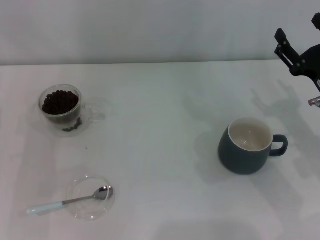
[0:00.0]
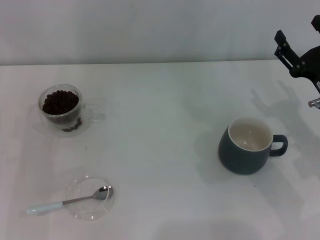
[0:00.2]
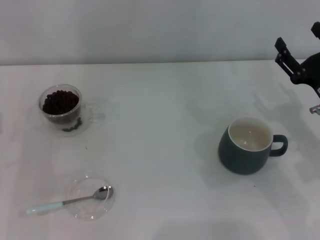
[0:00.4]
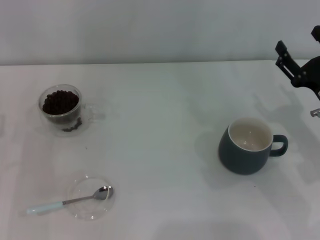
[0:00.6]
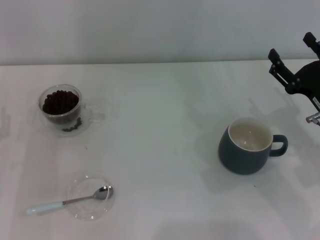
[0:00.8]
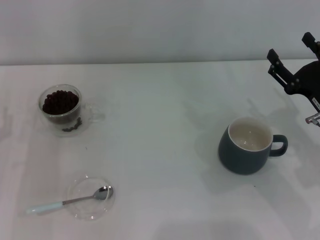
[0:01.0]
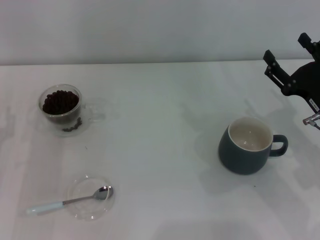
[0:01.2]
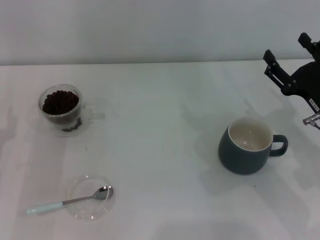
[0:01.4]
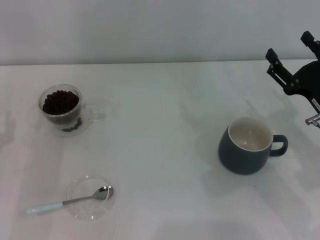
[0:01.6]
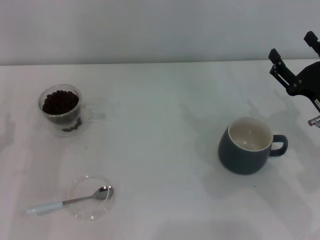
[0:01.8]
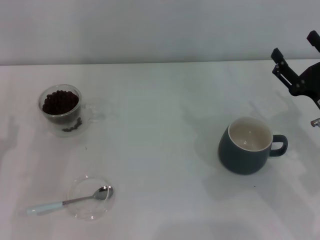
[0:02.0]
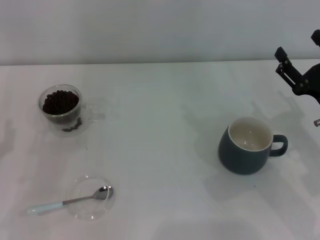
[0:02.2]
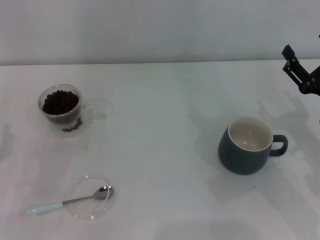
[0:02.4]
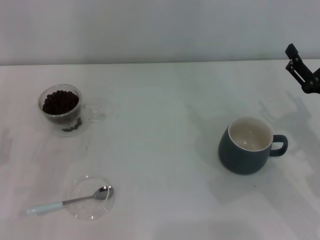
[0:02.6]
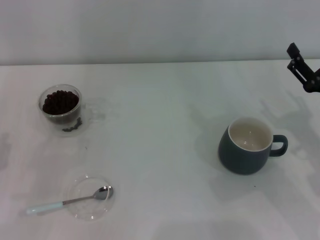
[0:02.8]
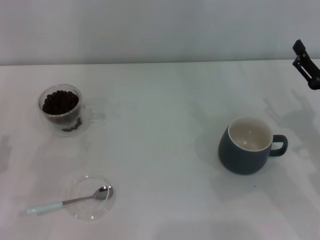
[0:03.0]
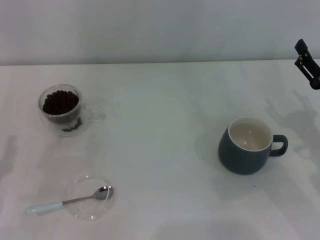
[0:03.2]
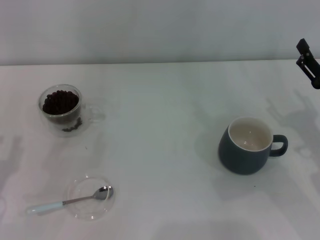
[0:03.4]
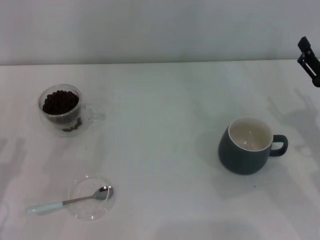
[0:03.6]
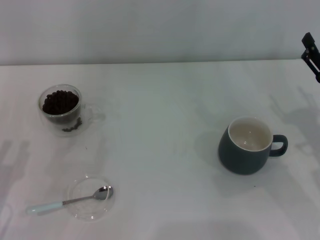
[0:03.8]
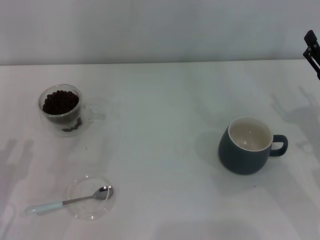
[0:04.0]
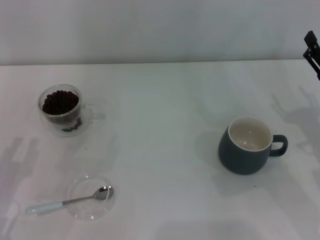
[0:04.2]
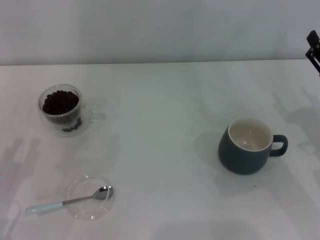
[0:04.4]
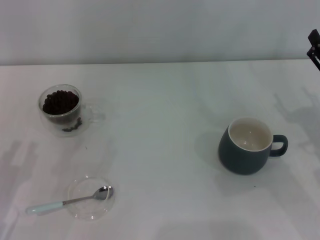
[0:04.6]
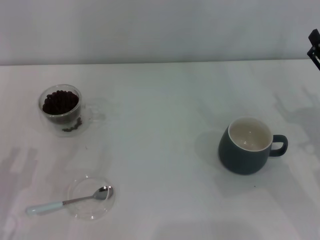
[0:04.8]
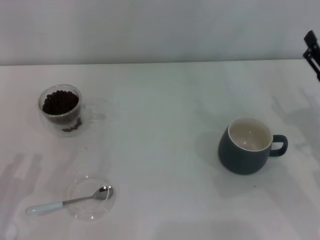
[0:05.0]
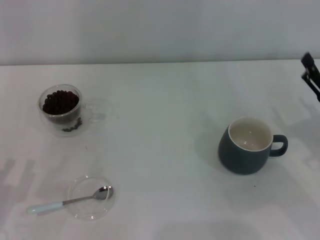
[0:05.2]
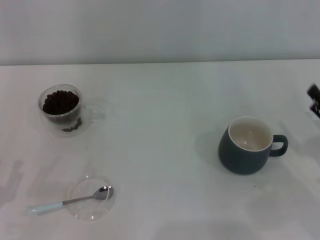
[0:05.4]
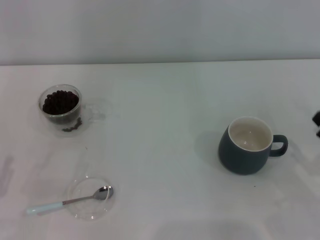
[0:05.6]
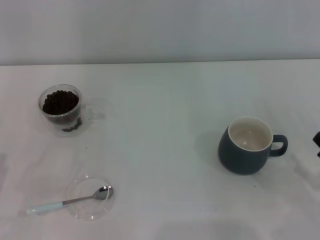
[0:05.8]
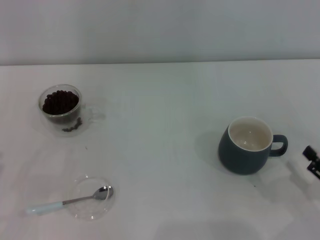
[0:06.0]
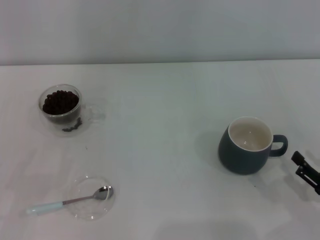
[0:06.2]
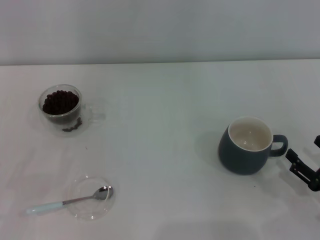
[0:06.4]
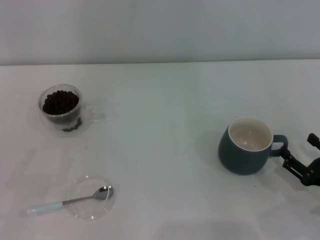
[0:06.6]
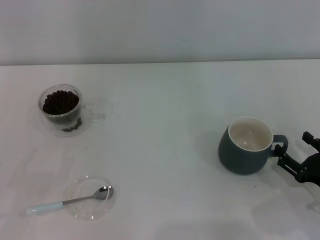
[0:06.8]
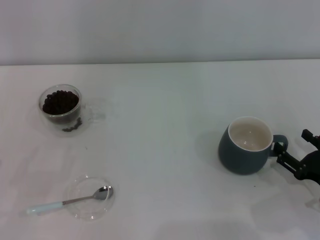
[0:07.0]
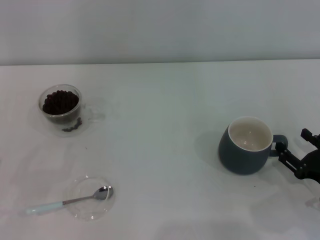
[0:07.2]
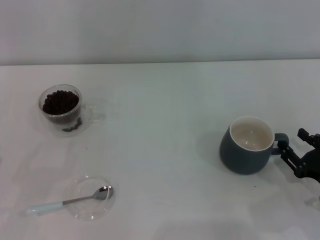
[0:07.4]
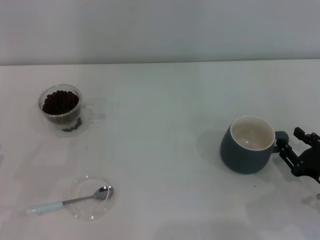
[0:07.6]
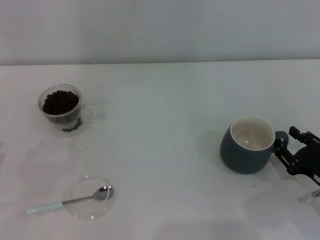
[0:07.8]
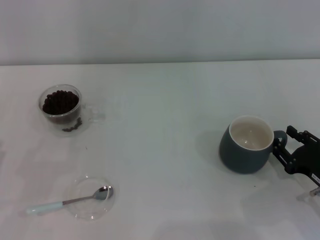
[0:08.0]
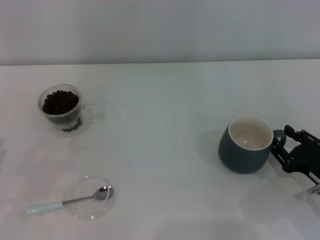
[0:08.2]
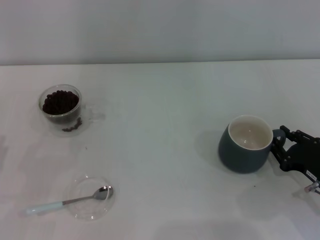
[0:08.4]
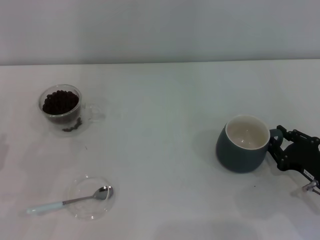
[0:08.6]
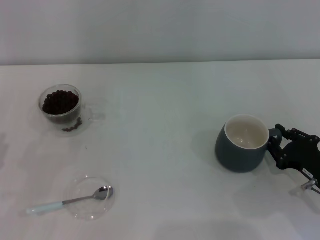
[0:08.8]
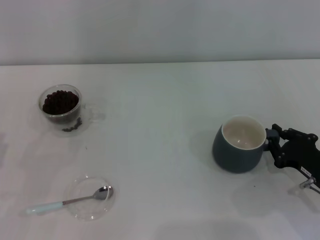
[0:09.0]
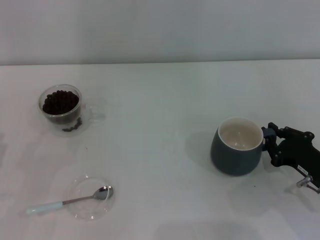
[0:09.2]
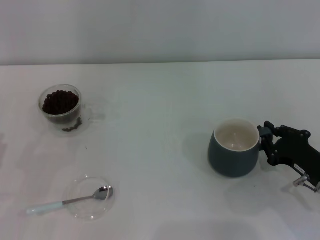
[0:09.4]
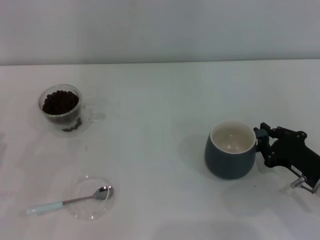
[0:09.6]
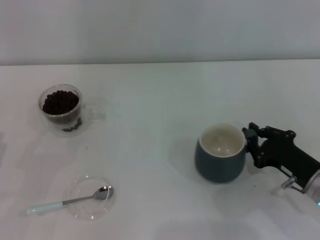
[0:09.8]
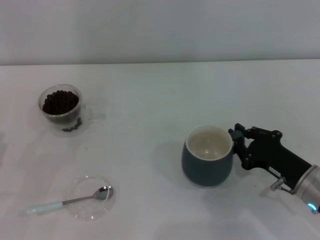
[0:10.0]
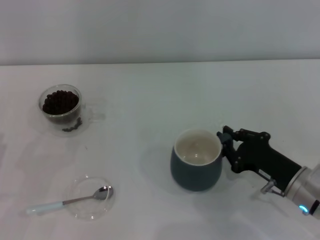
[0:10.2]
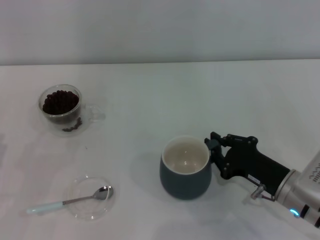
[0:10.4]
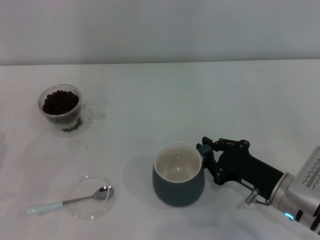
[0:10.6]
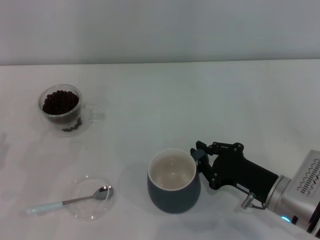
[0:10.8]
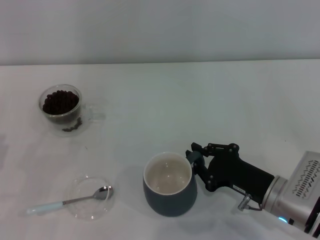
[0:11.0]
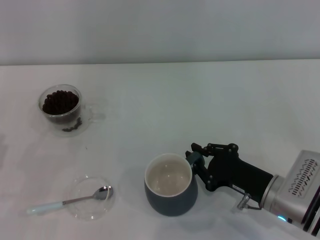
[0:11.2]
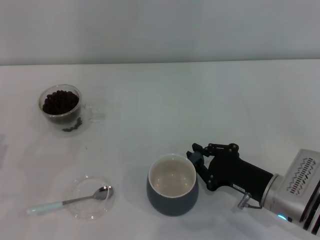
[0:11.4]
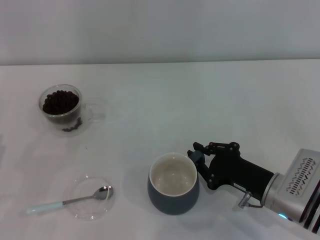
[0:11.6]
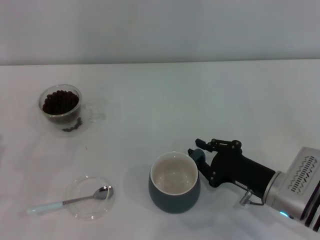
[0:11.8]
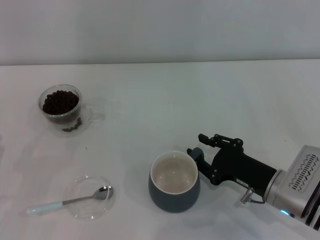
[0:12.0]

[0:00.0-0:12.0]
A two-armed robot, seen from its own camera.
Task of the whole recording: Use a blue spoon to take out the coffee beans from the glass and pour them into the gray cup.
0:00.0 to 0:01.6: The grippers stay close to where they were, moving slightly.
0:03.0 to 0:04.4: The grippers stay close to where they were, moving slightly.
0:04.4 to 0:06.0: The right gripper travels backward and downward by approximately 15 cm.
0:06.0 to 0:07.6: The right gripper heads forward, covering approximately 5 cm, and closes its fingers.
0:07.6 to 0:09.0: The right gripper closes up.
0:09.0 to 0:10.4: The right gripper shifts about 5 cm to the left.
0:10.4 to 0:12.0: The grippers stay close to where they were, moving slightly.

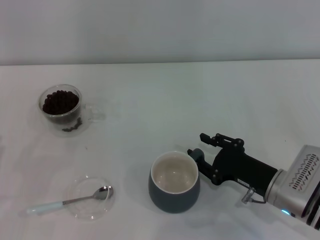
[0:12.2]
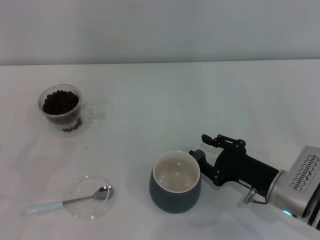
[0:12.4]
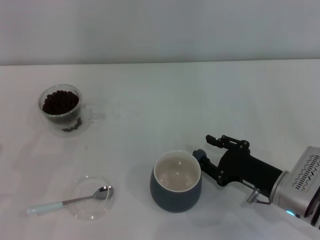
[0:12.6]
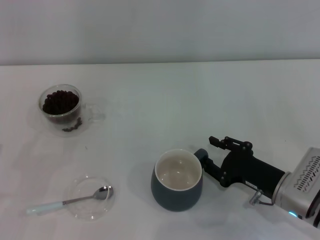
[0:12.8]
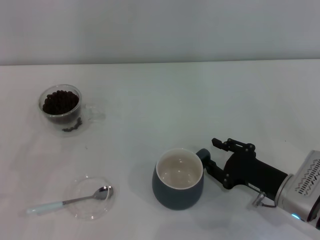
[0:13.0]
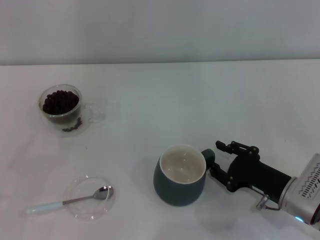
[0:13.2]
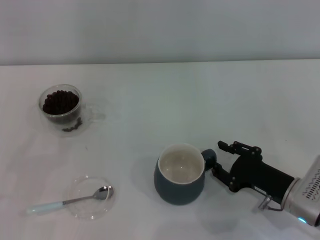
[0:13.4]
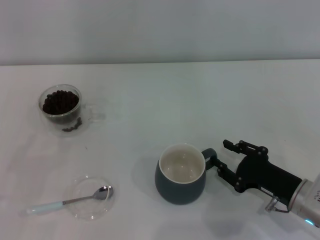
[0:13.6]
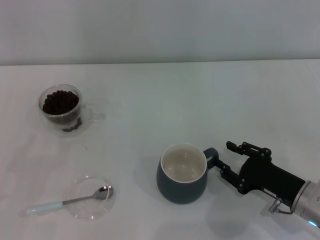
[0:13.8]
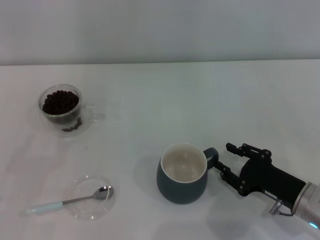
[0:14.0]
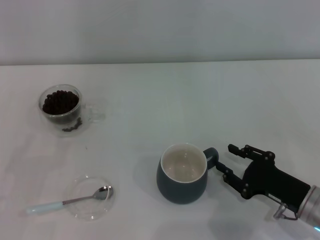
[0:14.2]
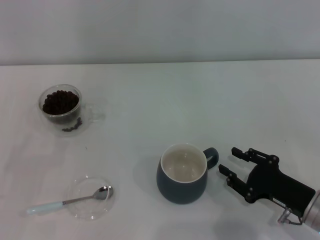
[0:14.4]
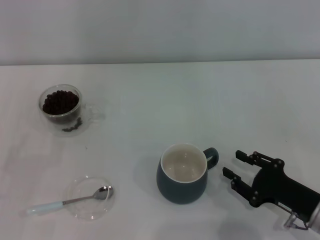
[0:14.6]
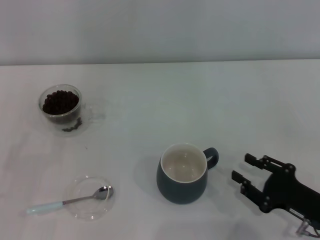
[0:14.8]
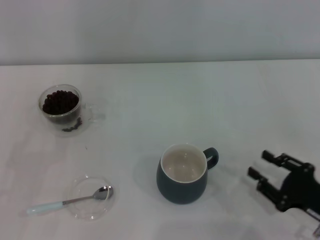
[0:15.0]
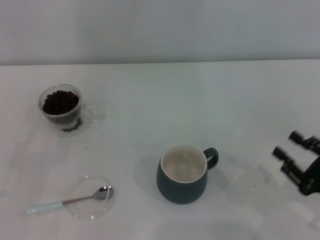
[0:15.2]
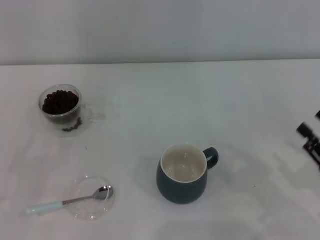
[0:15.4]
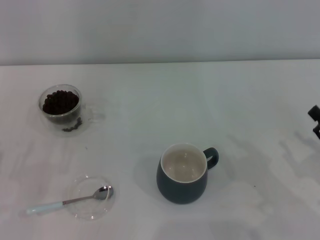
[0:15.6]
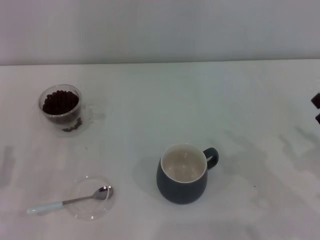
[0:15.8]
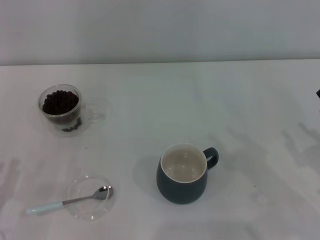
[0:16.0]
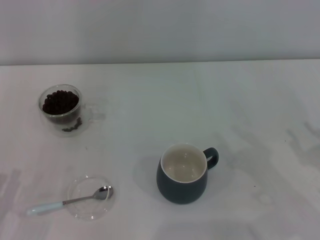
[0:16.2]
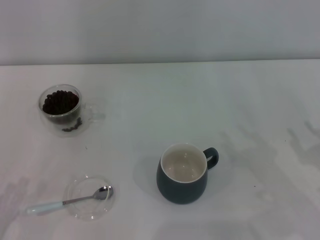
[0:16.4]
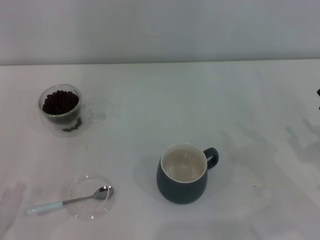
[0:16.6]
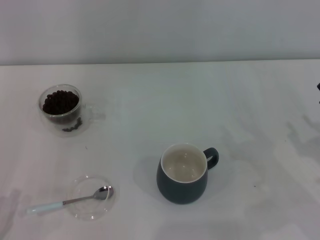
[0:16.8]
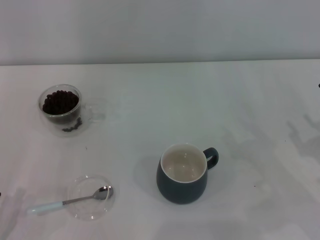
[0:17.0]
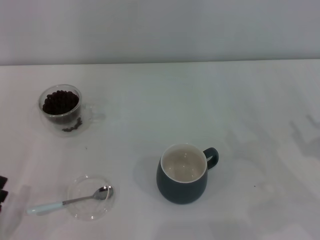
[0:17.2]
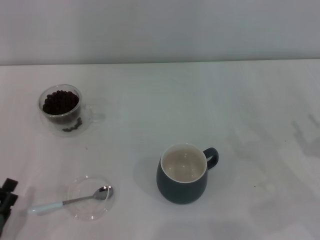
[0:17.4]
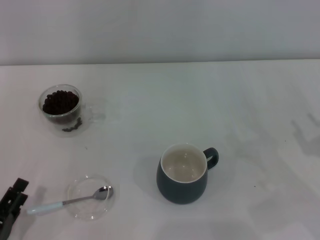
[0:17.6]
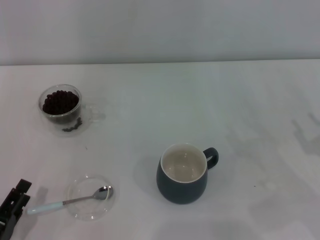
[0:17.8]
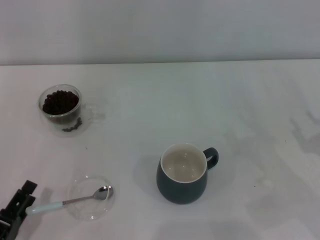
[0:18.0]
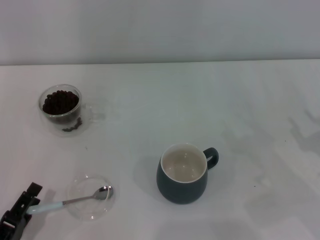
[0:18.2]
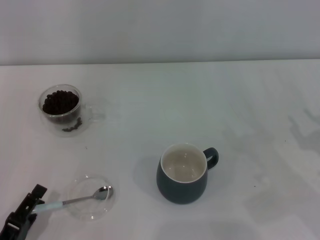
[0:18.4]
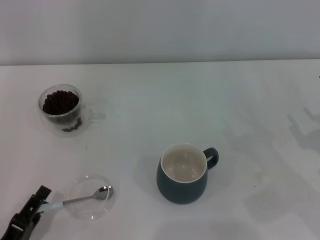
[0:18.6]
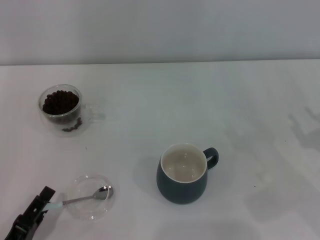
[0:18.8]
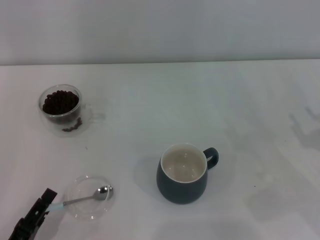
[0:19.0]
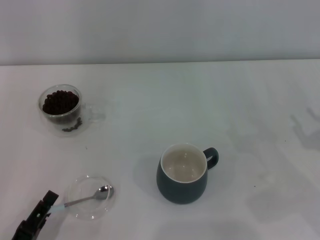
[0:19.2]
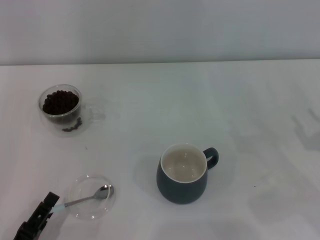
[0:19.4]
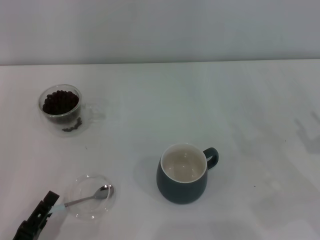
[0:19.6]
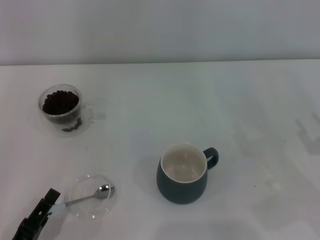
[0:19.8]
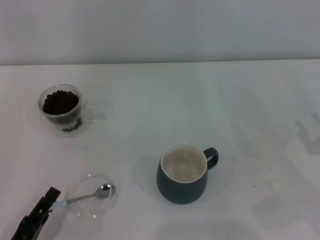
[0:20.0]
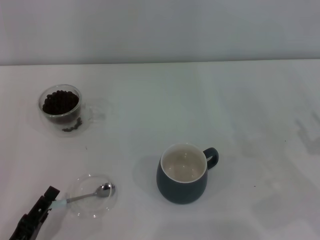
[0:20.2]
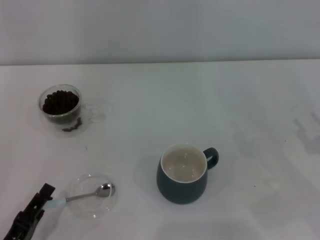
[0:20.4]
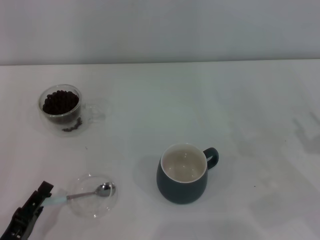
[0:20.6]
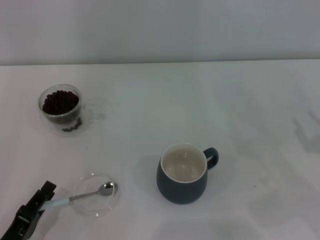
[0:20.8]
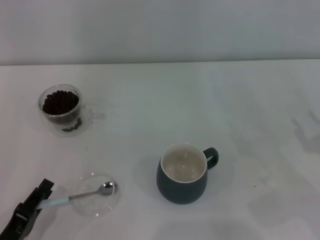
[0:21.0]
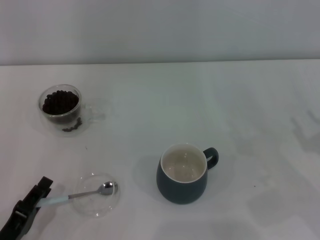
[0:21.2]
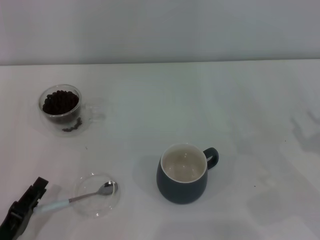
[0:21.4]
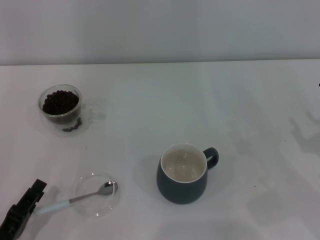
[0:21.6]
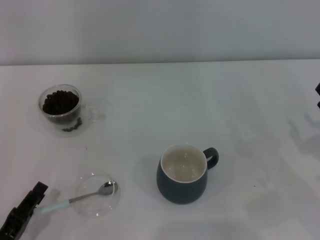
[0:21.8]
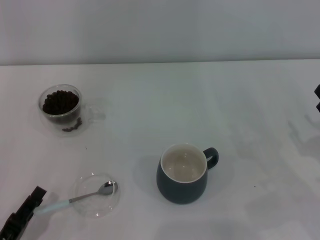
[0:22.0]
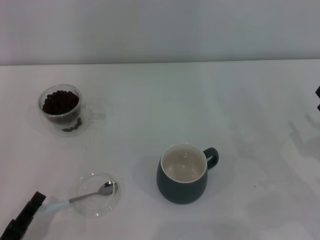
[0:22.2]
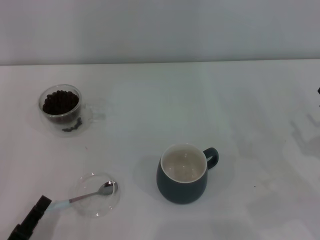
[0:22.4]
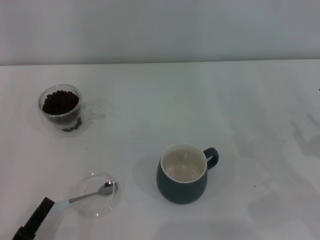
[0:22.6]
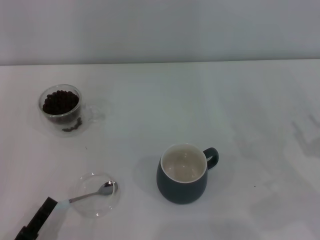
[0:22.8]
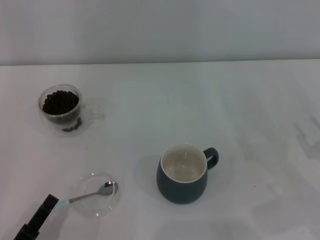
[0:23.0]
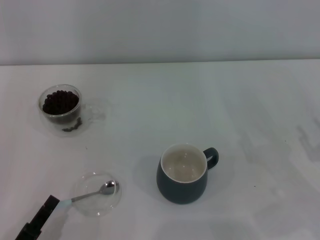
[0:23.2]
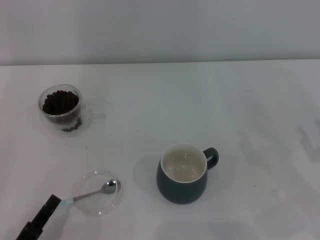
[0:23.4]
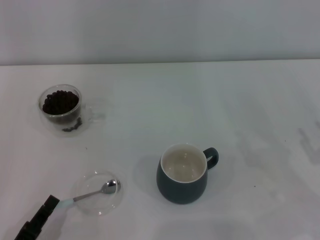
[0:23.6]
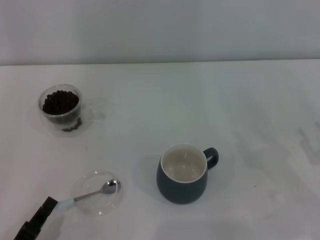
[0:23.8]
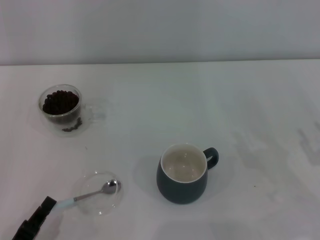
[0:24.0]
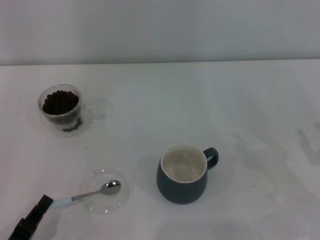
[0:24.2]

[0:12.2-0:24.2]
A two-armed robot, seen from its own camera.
Task of the whole recording: Use a blue spoon to take out the coffee beans from the glass and pour them into the gray cup.
Step, 0:12.2 to 0:14.2: Move the cup to the center of view with the left gripper.
0:12.2 to 0:13.8: The grippers move only a little.
0:13.8 to 0:15.2: The right gripper is displaced to the right and backward by some 10 cm.
0:16.6 to 0:19.8: The grippers stay close to where they were, moving slightly.
0:19.8 to 0:21.2: The left gripper closes.
0:21.2 to 0:22.6: The grippers stay close to where they were, moving slightly.
0:22.6 to 0:24.2: The left gripper closes up.
